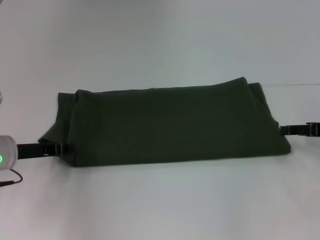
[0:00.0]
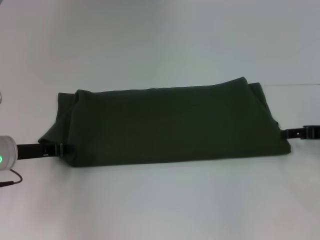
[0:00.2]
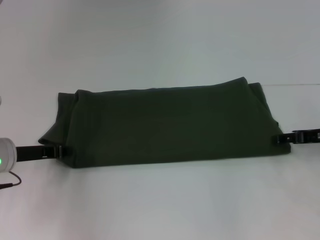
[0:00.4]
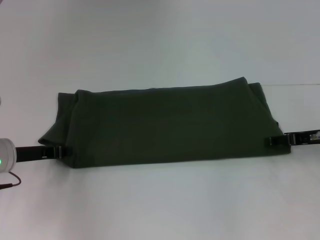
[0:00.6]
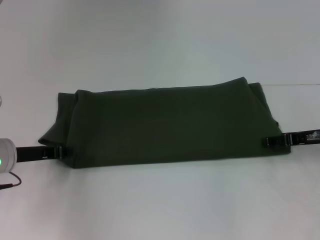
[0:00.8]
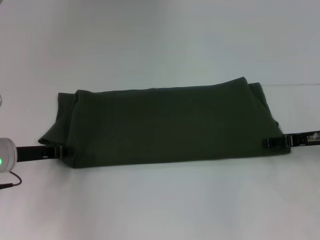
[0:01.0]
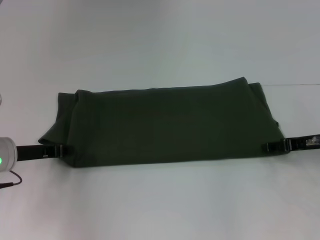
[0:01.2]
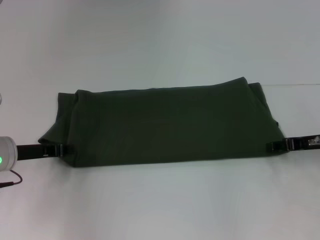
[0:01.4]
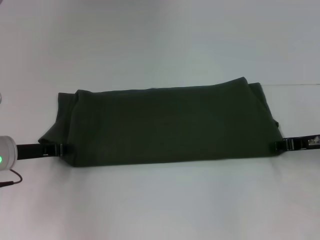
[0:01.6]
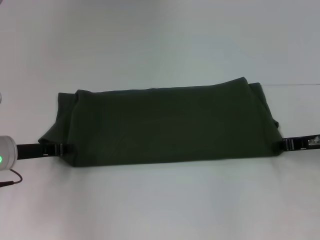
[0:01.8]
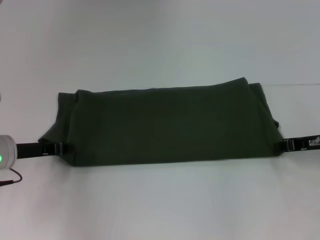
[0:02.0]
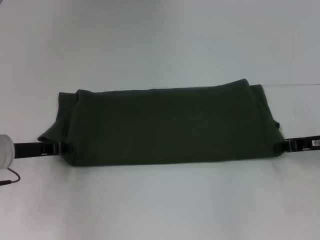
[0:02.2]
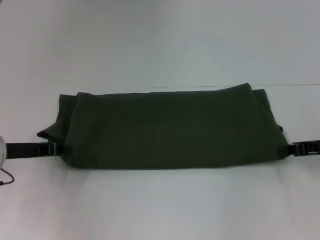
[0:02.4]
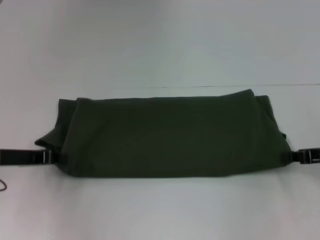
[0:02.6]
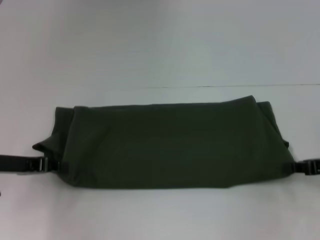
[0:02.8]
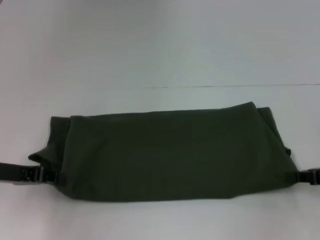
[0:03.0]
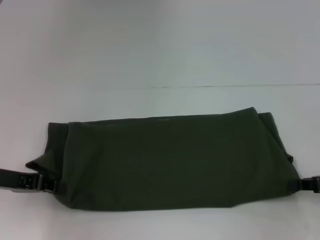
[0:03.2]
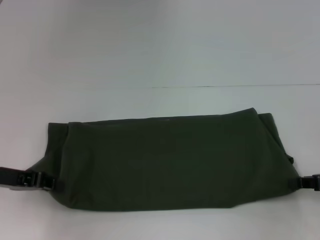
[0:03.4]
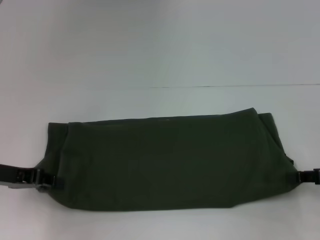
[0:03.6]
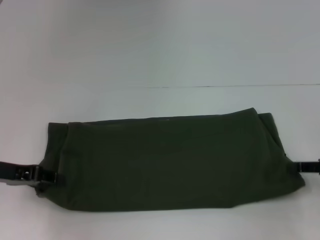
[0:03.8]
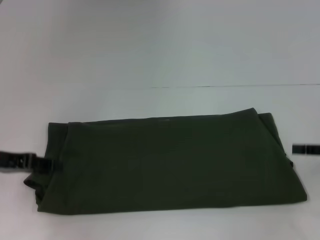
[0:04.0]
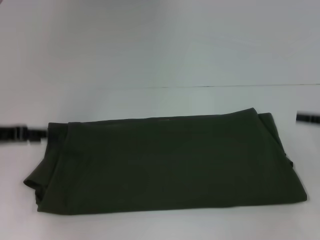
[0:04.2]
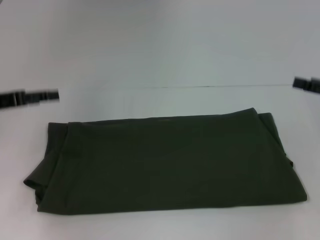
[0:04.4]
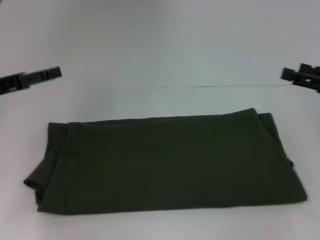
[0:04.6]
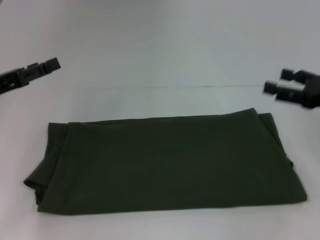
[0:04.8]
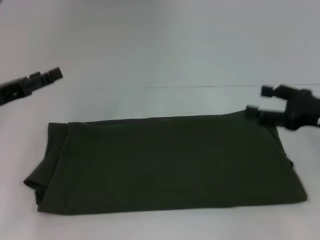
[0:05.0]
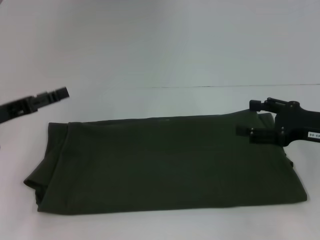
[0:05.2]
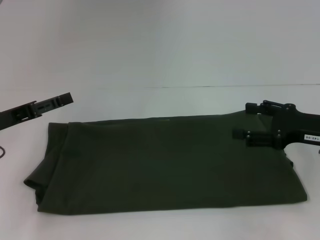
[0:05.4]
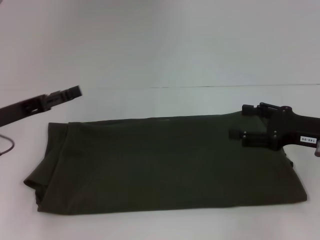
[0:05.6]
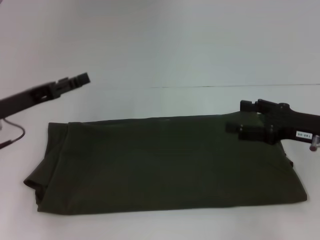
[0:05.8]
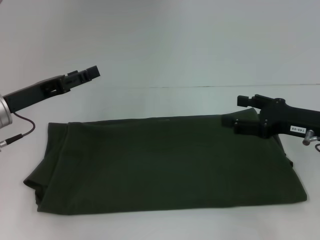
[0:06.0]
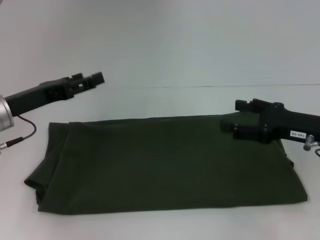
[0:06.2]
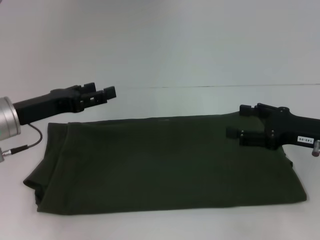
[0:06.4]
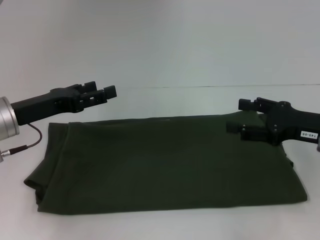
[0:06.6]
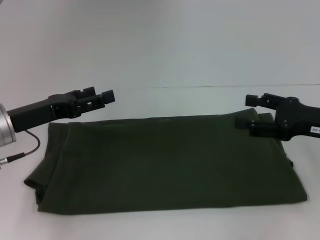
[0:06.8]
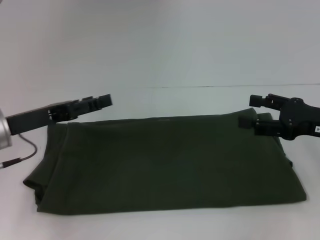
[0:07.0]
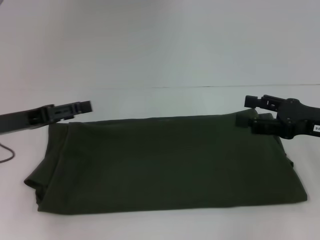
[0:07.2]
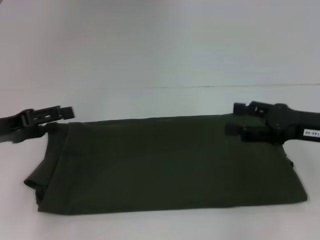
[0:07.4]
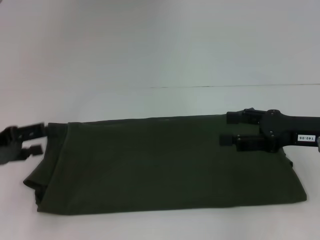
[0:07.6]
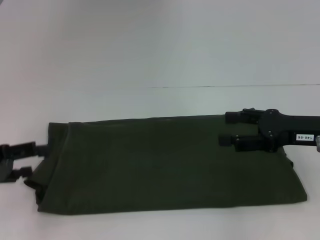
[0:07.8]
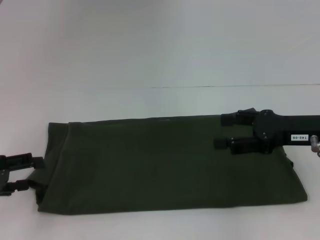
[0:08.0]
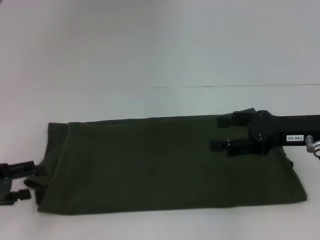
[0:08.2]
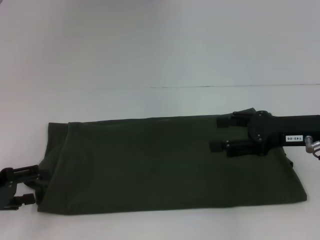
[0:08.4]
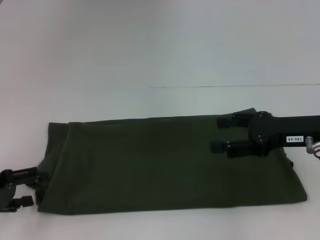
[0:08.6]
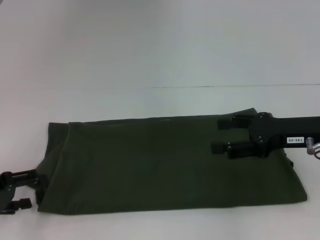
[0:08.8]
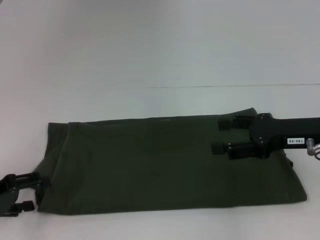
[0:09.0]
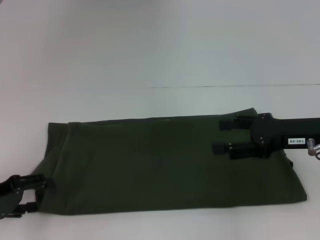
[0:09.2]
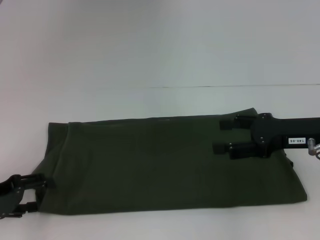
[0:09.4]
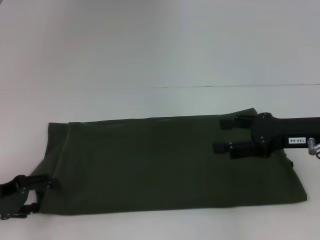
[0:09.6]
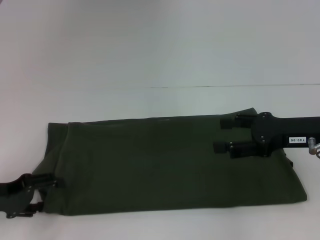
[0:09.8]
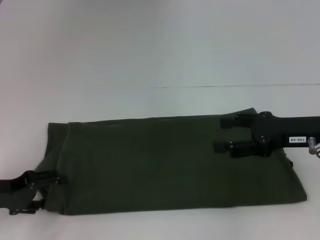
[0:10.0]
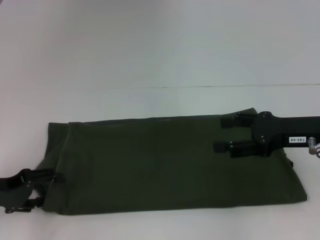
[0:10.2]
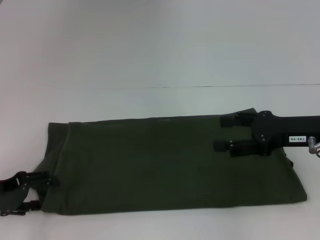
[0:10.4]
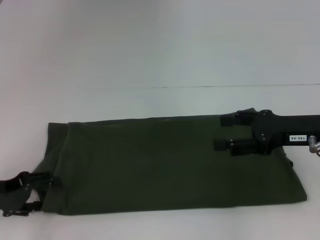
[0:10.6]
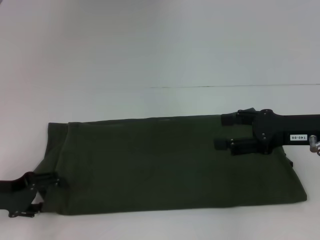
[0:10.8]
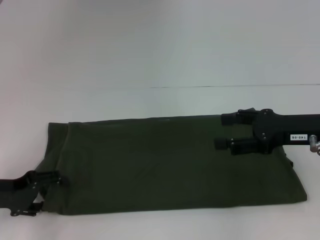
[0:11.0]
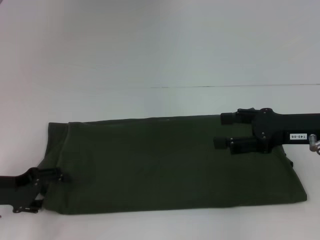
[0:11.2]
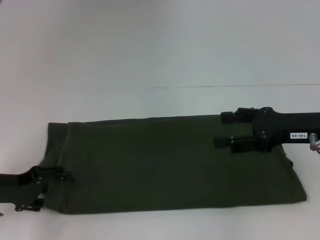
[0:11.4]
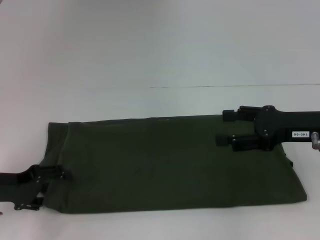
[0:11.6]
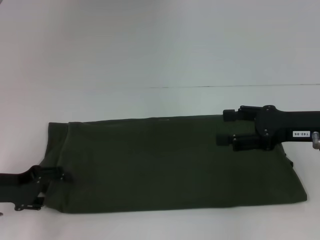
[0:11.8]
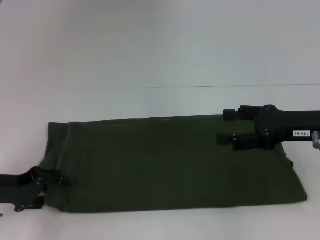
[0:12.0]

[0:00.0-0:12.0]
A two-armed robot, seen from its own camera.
Step, 0:00.0 to 0:03.6: Pull the clothes with your left hand.
Step, 0:00.0 to 0:03.6: Pull the clothes with your right hand.
0:00.0 to 0:01.6: The grippers move only a little.
0:01.6 to 0:03.0: The left gripper changes place by some 5 cm; the right gripper moves backward, roughly 5 cm, and closes up.
0:03.0 to 0:04.4: Both grippers move upward, some 5 cm. The right gripper opens its fingers. The left gripper opens.
0:04.4 to 0:06.0: The right gripper shifts roughly 10 cm to the left. Meanwhile the left gripper shifts roughly 5 cm to the right.
0:06.0 to 0:07.6: The left gripper moves to the left and backward, roughly 10 cm.
0:07.6 to 0:09.0: The left gripper is displaced downward by some 5 cm.
0:09.0 to 0:12.0: The grippers make only small movements.

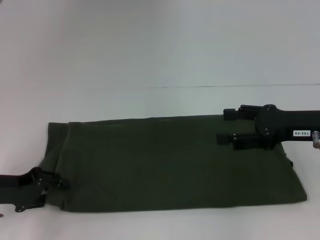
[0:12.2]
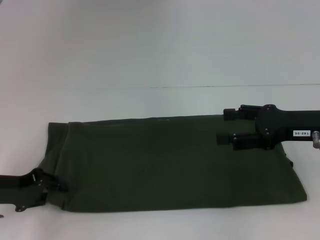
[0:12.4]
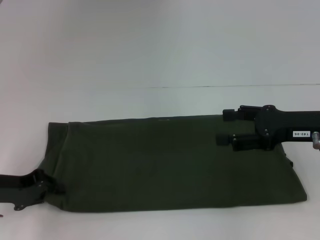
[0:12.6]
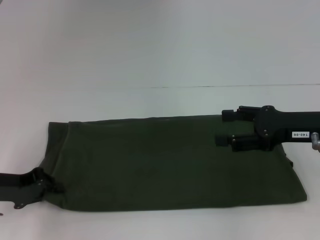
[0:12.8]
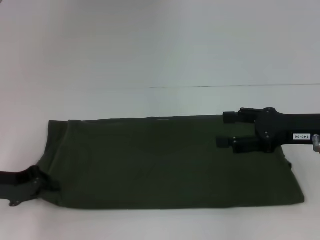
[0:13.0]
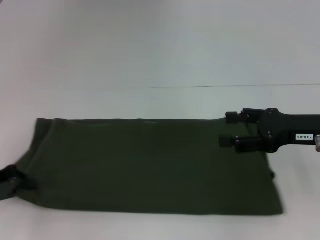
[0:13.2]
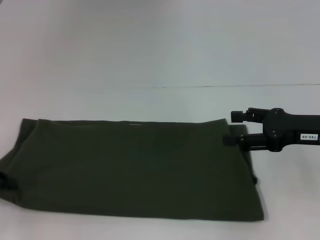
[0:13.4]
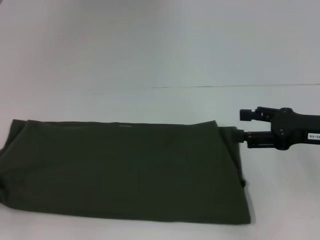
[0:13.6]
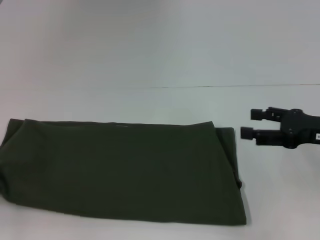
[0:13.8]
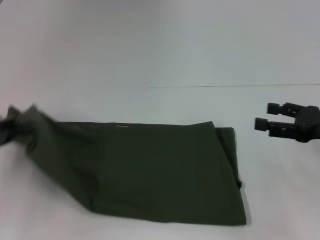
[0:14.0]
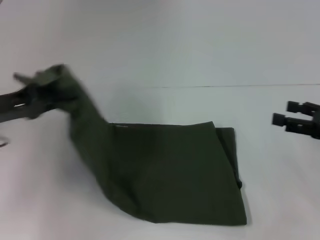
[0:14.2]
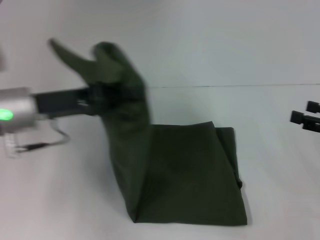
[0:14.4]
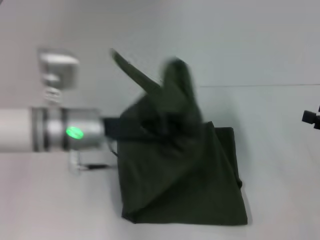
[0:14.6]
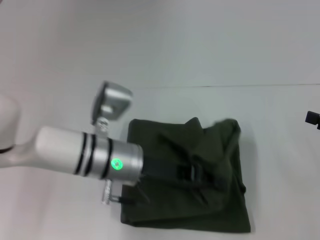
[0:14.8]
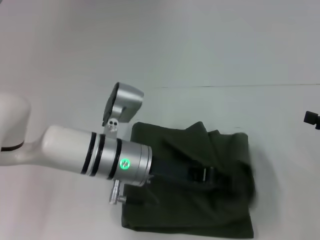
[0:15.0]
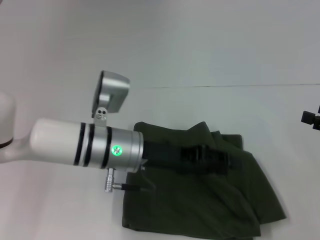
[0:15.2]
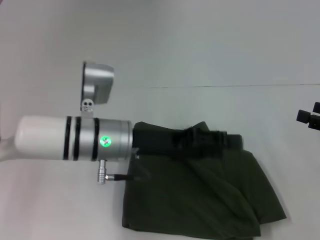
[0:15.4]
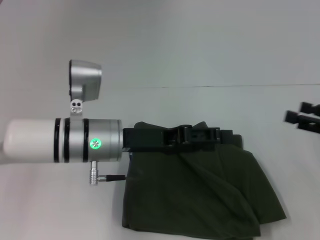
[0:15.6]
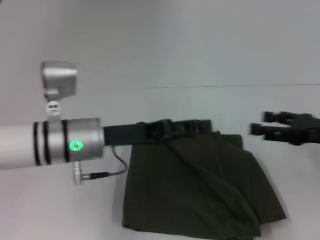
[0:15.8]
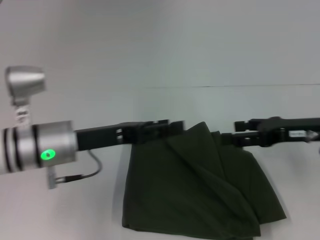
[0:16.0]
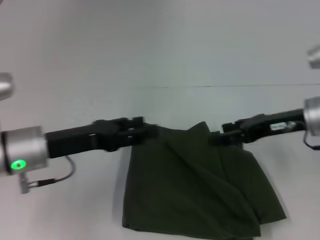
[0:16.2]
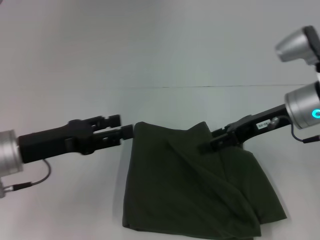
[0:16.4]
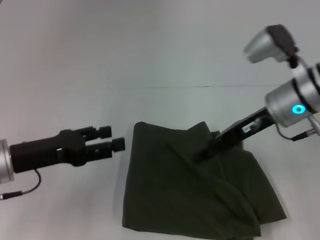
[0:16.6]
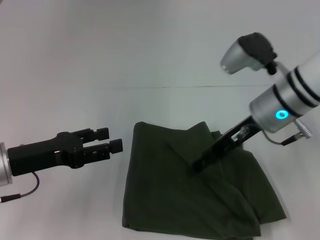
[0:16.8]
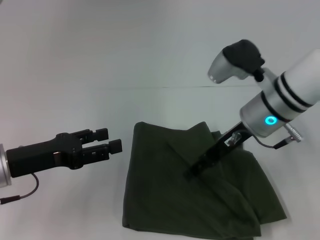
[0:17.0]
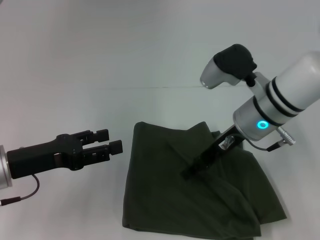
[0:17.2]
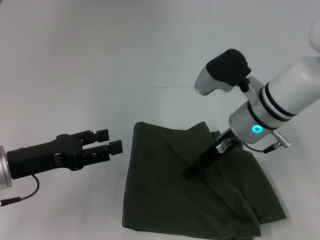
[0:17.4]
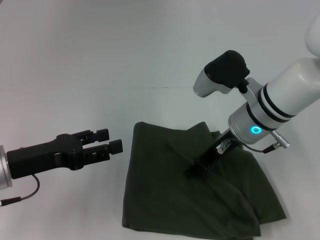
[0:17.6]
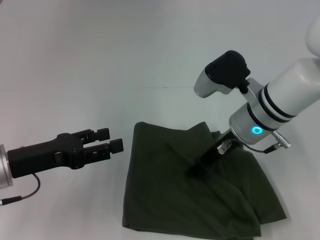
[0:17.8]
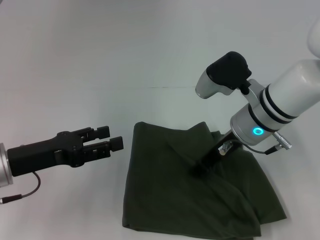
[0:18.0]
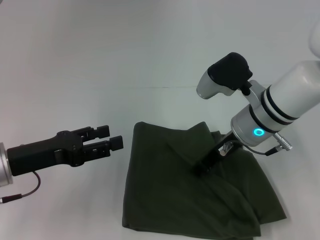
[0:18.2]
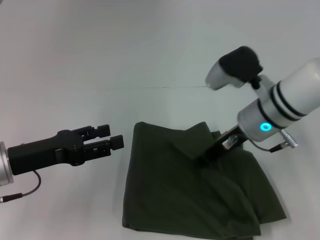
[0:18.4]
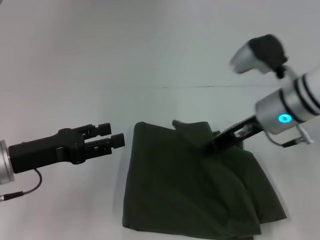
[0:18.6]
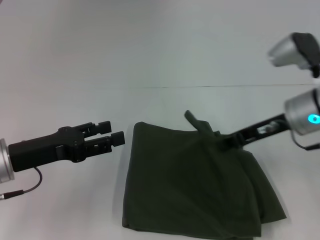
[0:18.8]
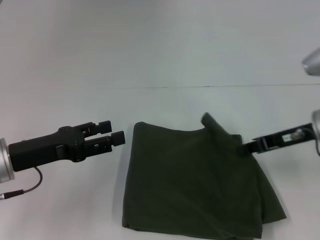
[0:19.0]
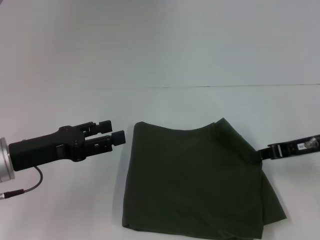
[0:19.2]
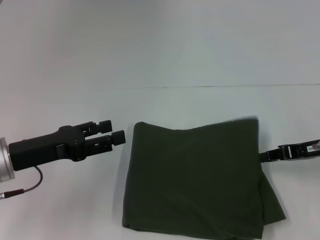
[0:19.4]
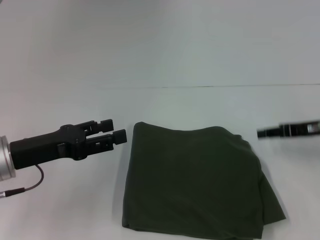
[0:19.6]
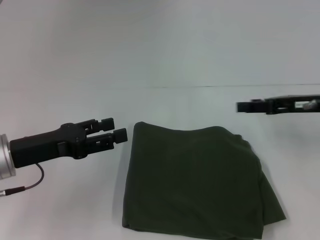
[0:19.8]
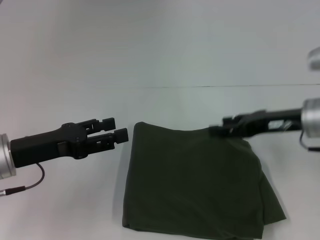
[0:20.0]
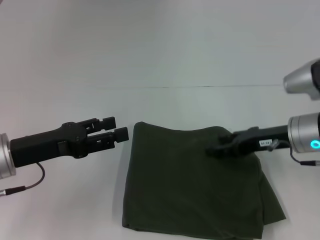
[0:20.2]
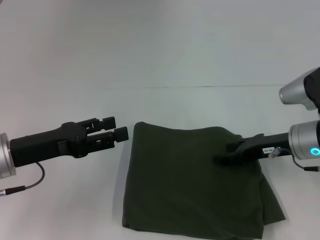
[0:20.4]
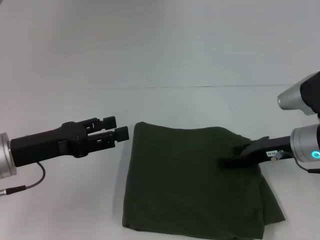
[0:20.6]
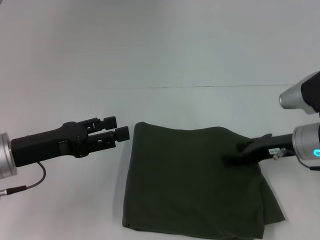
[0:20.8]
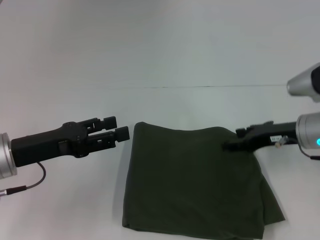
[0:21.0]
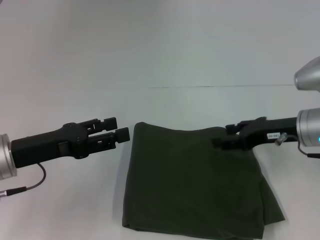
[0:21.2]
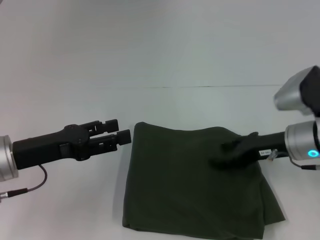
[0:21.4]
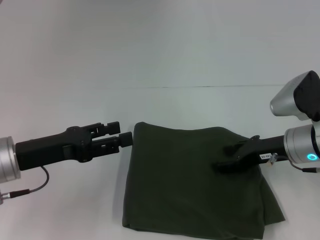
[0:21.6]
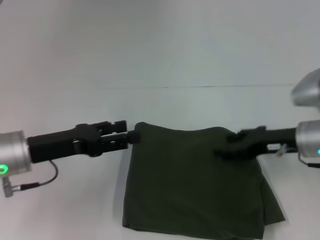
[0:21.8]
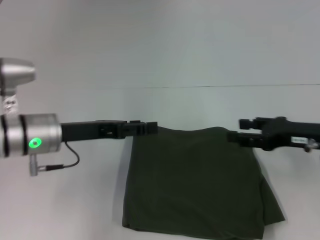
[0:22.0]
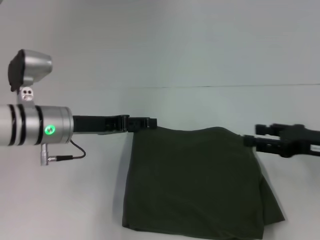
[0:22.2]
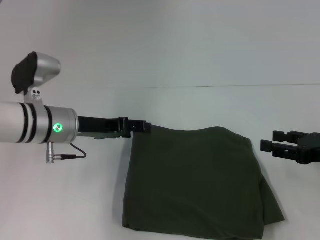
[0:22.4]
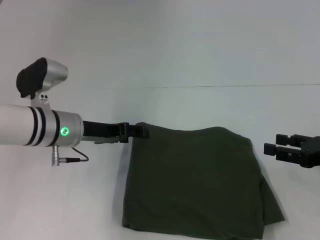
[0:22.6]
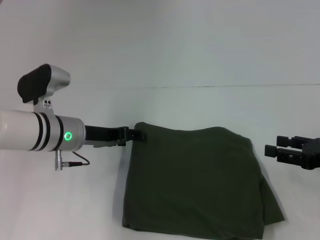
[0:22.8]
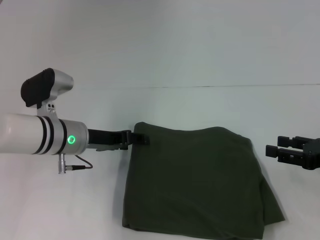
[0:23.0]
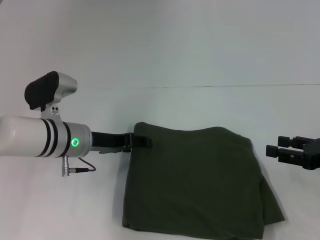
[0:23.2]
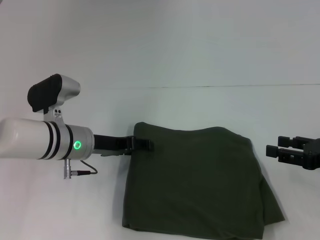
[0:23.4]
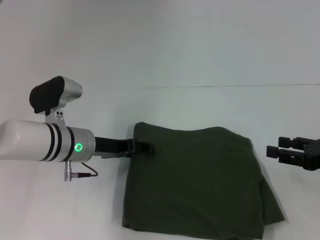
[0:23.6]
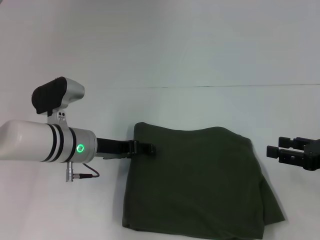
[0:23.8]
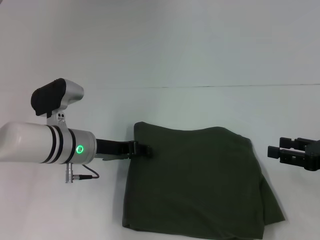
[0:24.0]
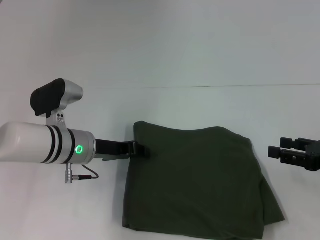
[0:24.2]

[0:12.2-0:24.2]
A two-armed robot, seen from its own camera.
Step, 0:12.2 to 0:15.4: Fold the clothes with your left hand.
0:12.2 to 0:13.8: The left gripper is displaced to the left by about 10 cm, and closes.
0:13.8 to 0:15.2: The right gripper is displaced to the right by about 10 cm; the left gripper travels to the right by some 30 cm.
0:15.2 to 0:16.6: The left gripper goes roughly 15 cm to the left, and opens its fingers. The right gripper goes some 20 cm to the left and forward.
0:16.6 to 0:18.2: The right gripper travels to the left by roughly 5 cm, and closes.
0:18.2 to 0:19.8: The right gripper moves to the right, approximately 15 cm.
0:19.8 to 0:21.2: The right gripper changes place by roughly 5 cm.
0:21.2 to 0:22.6: The right gripper heads to the right and backward, covering roughly 10 cm. The left gripper is displaced forward and to the right by roughly 10 cm.
0:22.6 to 0:24.2: The grippers move only a little.
